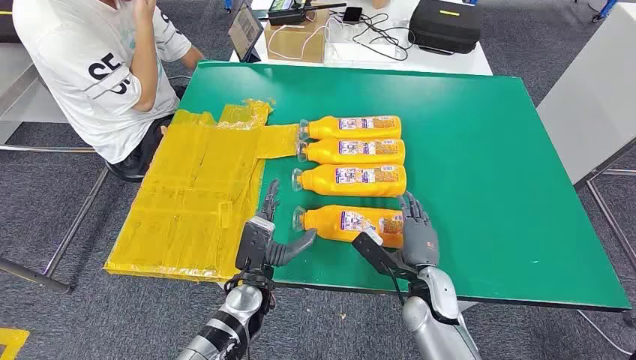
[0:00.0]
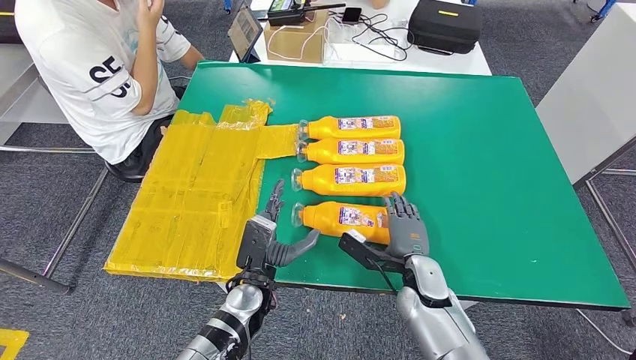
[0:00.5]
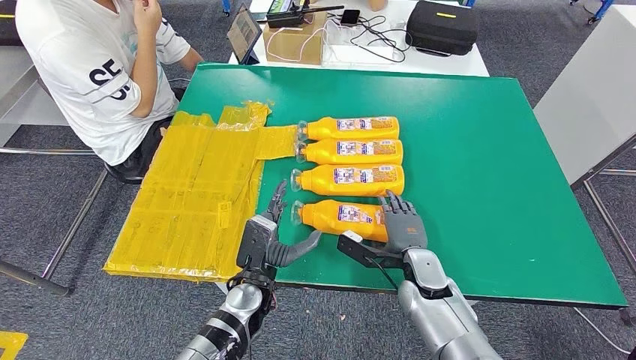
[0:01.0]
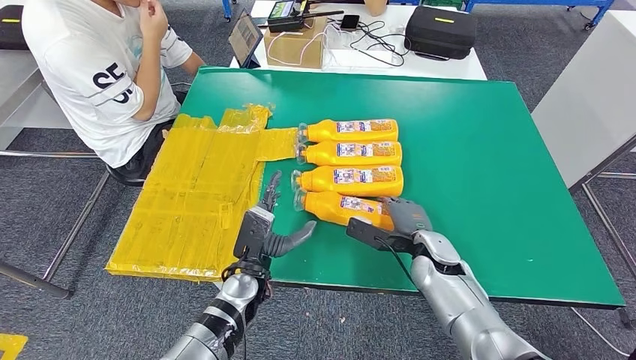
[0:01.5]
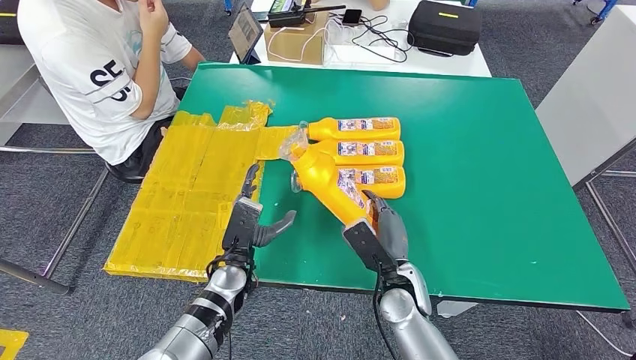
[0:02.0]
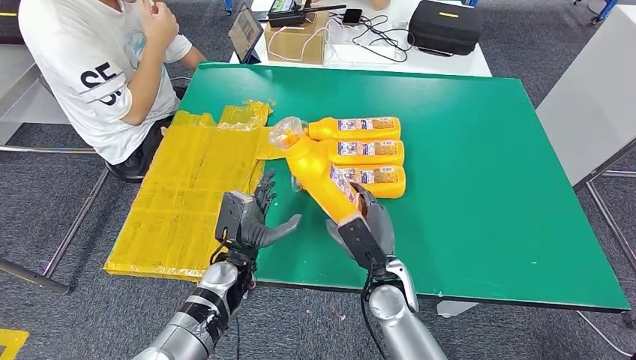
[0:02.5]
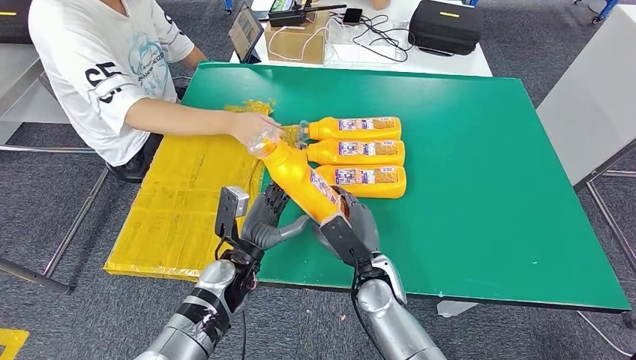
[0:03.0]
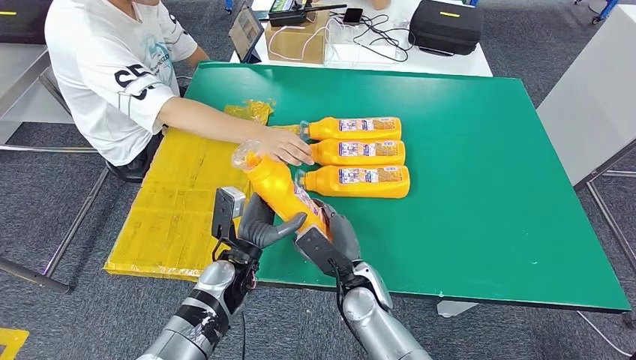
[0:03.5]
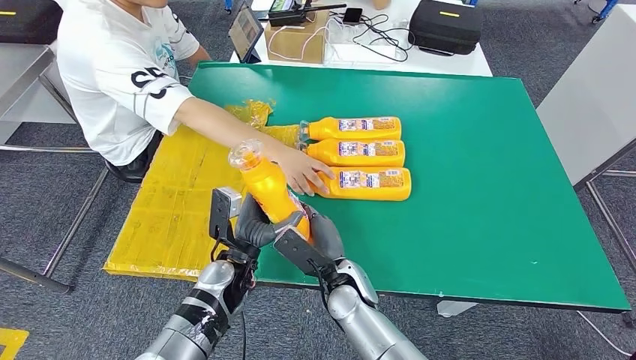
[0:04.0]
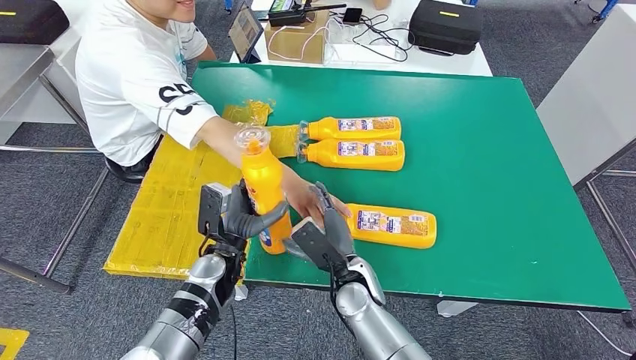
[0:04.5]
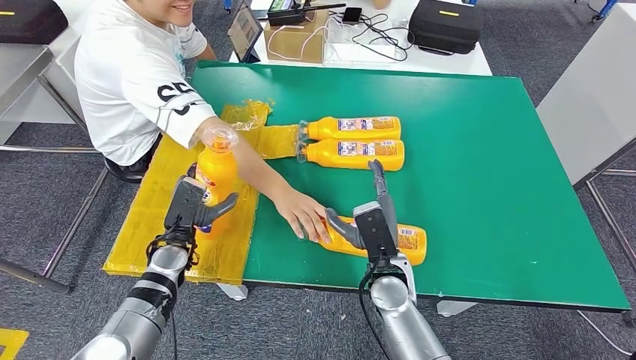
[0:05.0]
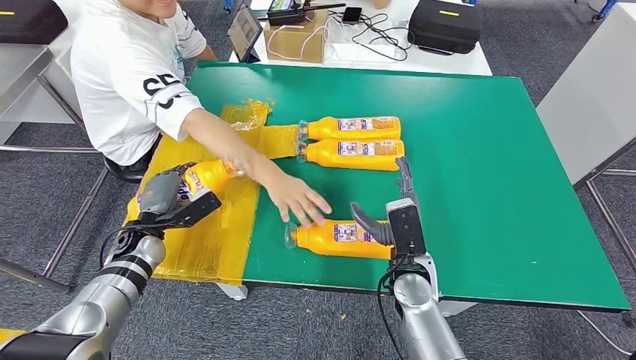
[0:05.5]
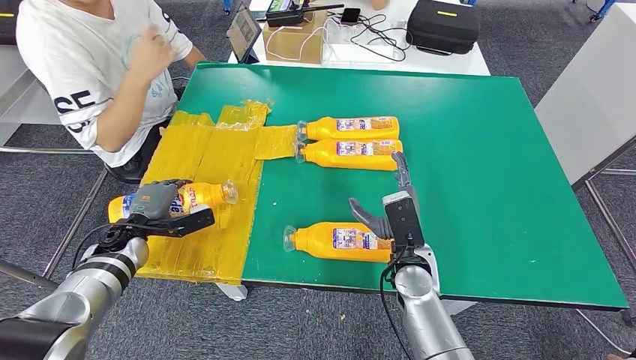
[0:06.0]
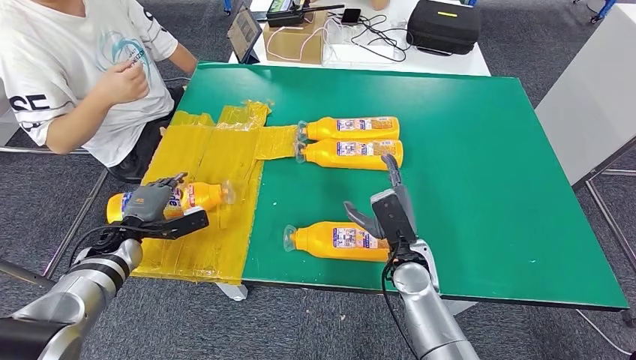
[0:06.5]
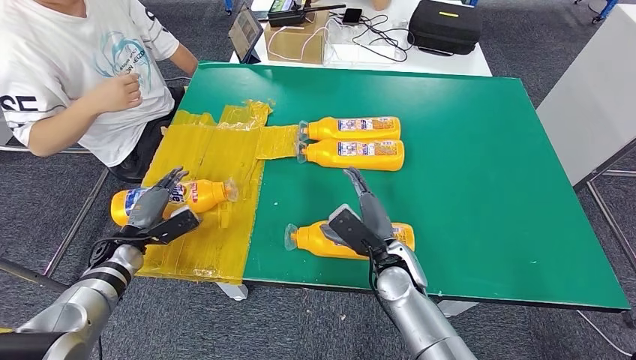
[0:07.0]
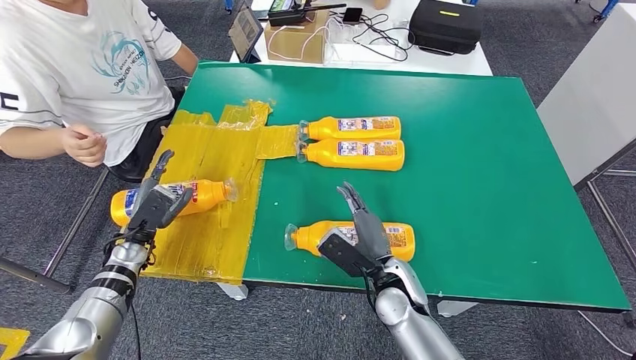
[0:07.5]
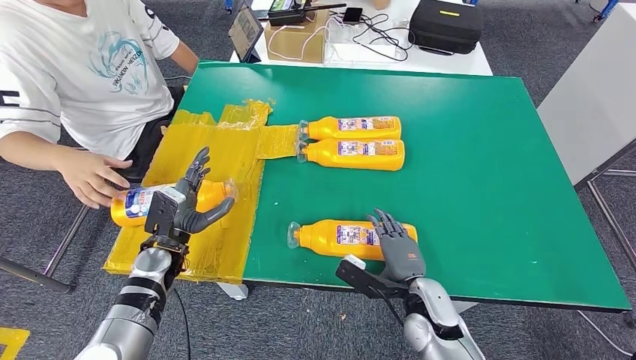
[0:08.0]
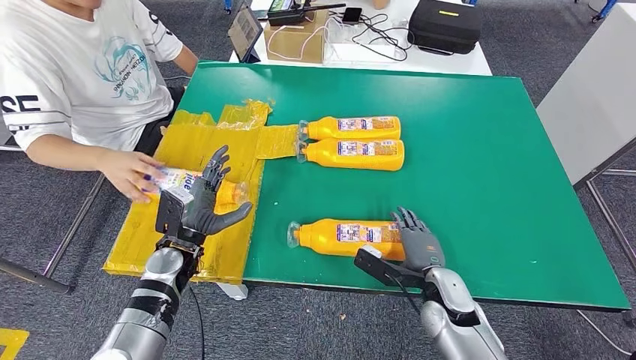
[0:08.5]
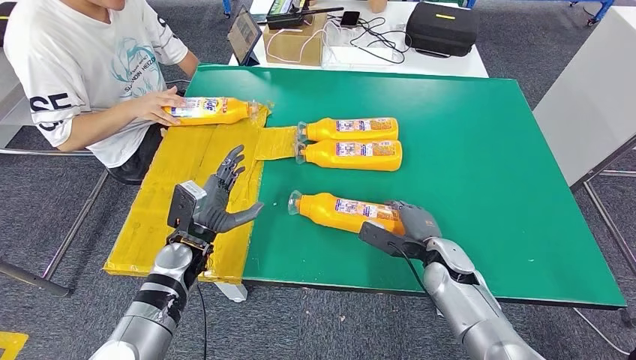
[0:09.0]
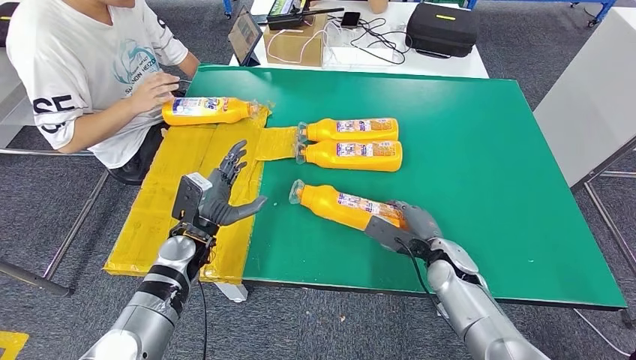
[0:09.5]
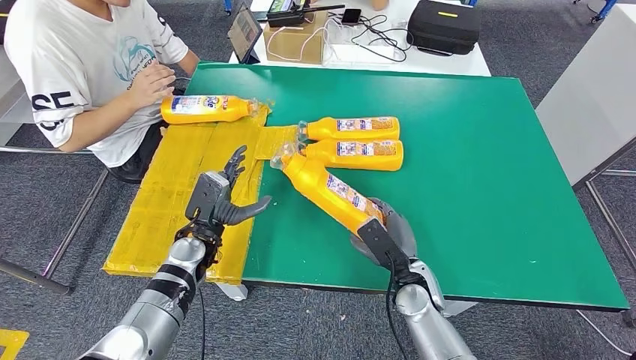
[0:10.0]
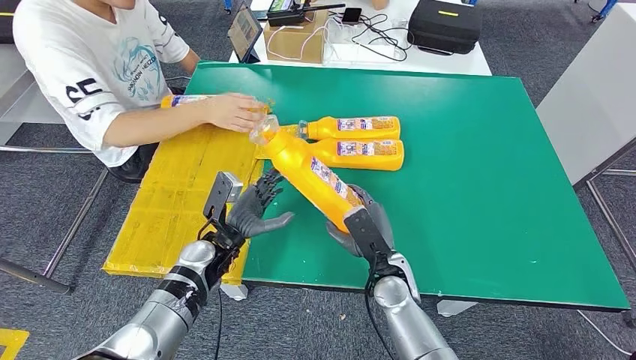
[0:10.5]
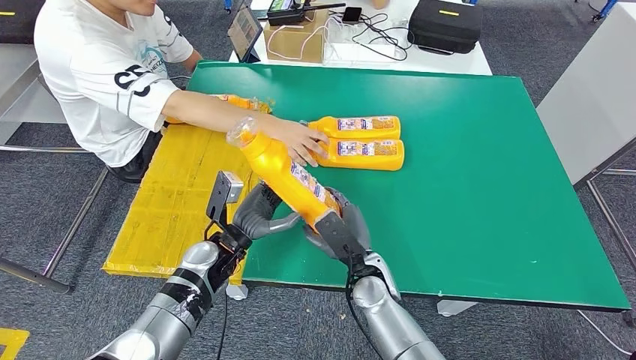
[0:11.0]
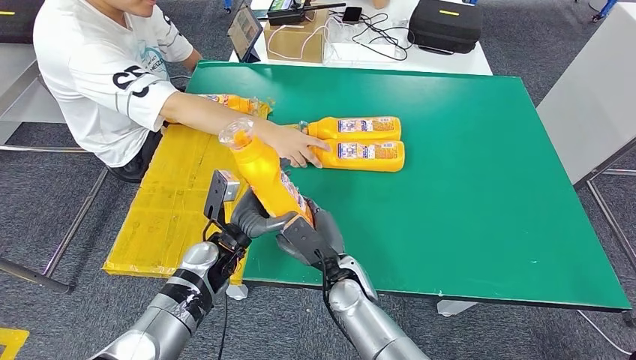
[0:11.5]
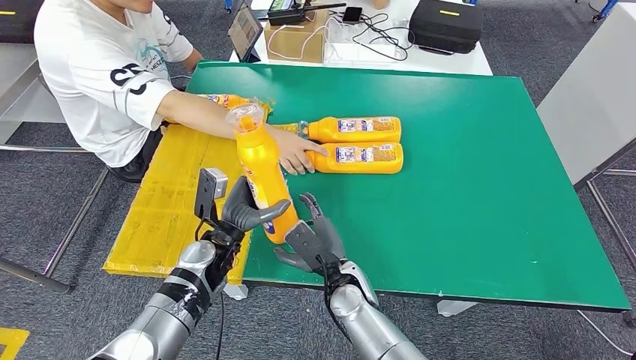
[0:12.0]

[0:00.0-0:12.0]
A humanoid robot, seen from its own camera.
Step, 0:00.0 to 0:02.5: Take the bottle from the table.
Step, 0:03.5 to 0:06.5: Flip the bottle to face forward.
Step, 0:08.5 to 0:10.0: Pick up the bottle from the table.

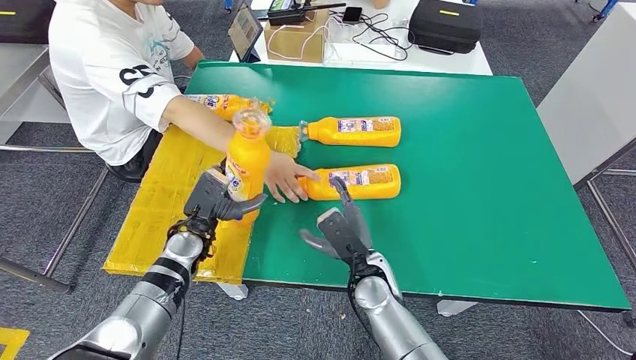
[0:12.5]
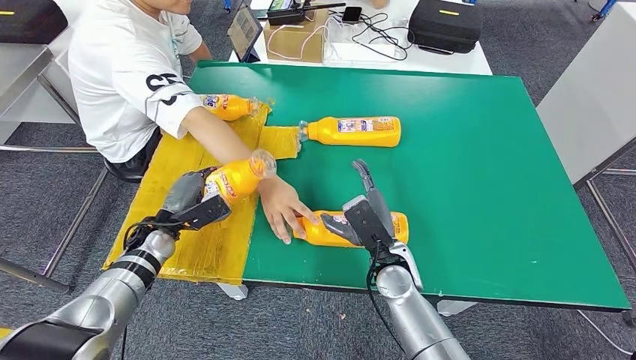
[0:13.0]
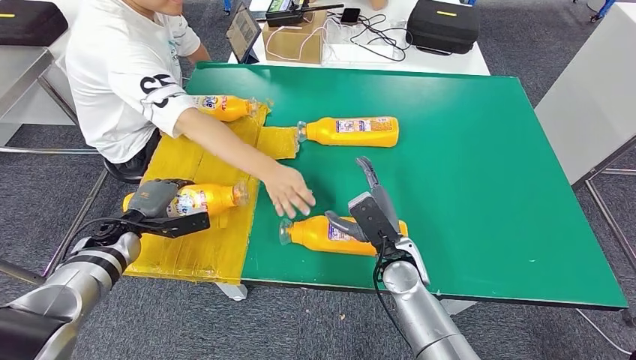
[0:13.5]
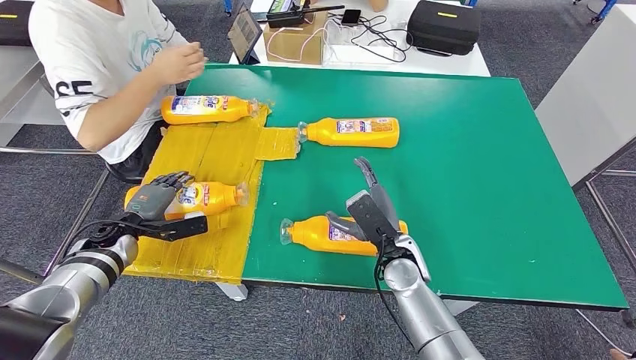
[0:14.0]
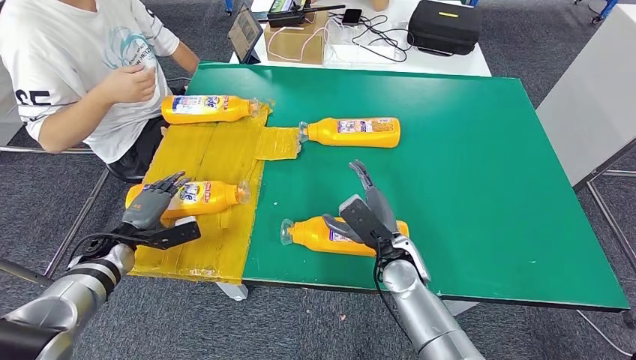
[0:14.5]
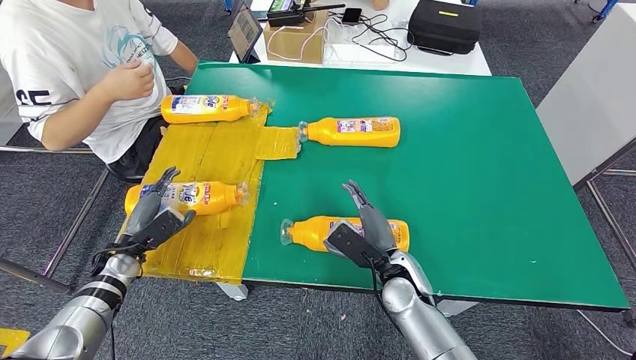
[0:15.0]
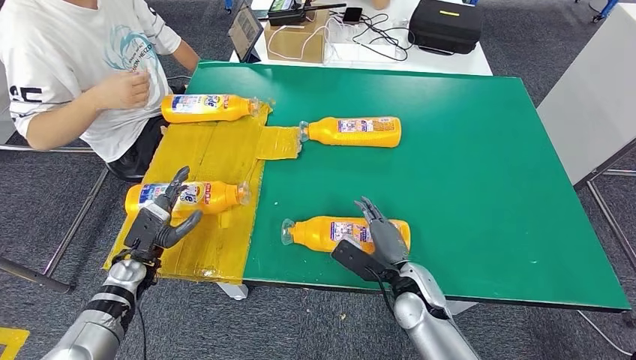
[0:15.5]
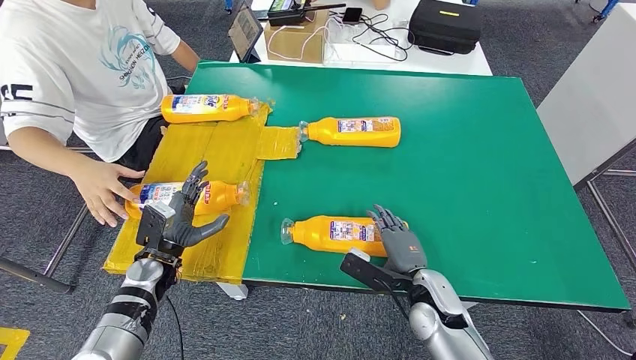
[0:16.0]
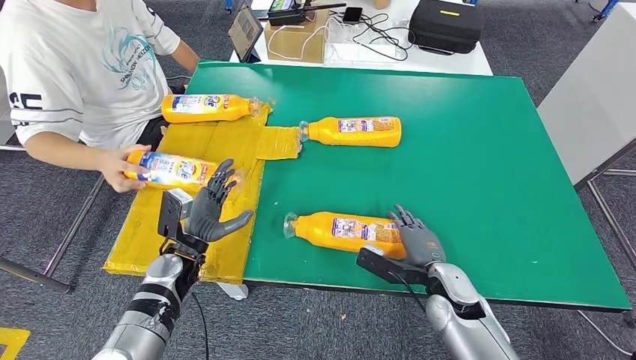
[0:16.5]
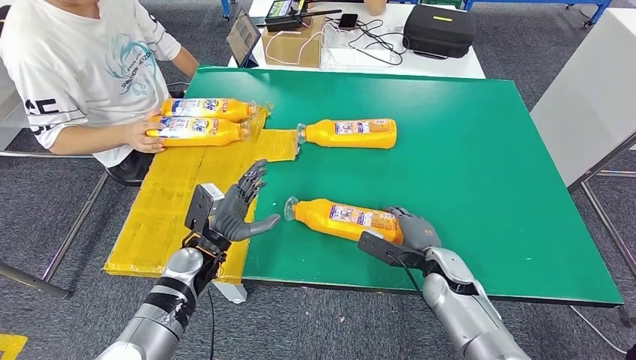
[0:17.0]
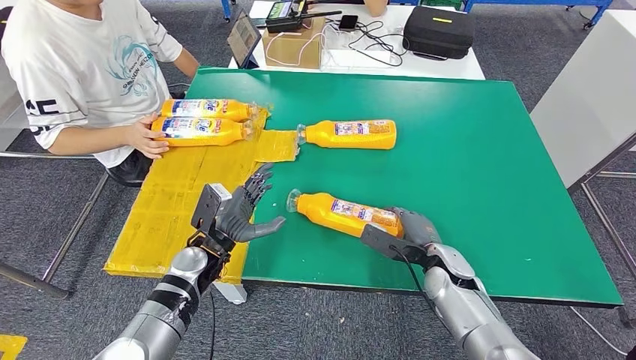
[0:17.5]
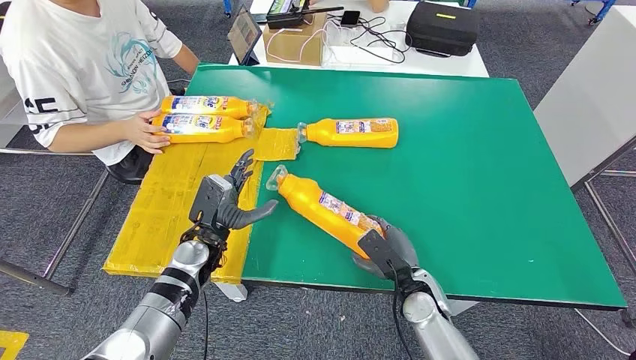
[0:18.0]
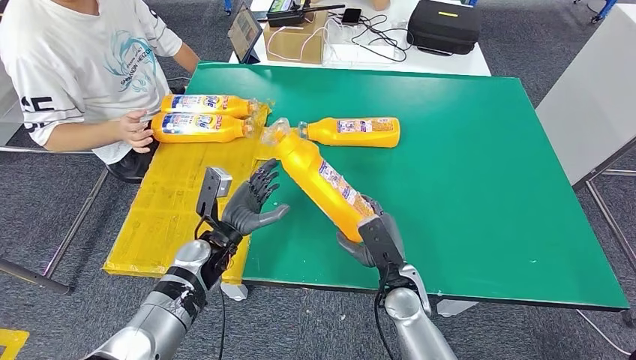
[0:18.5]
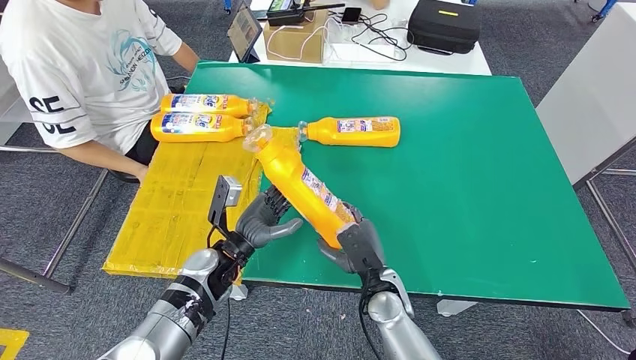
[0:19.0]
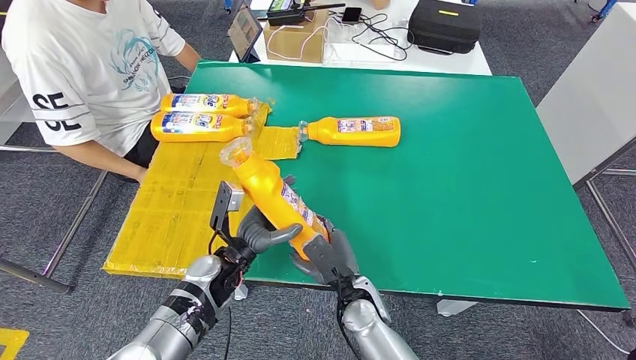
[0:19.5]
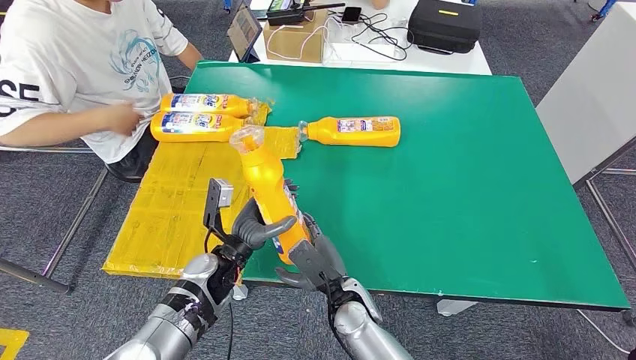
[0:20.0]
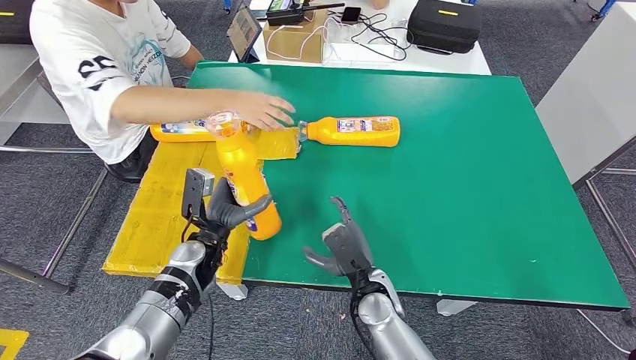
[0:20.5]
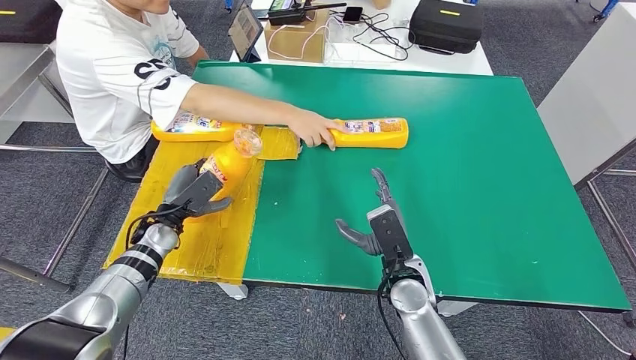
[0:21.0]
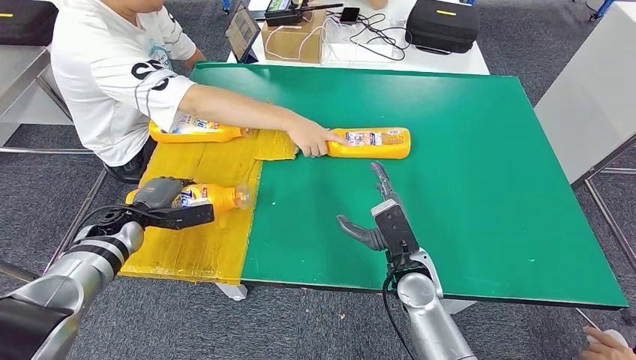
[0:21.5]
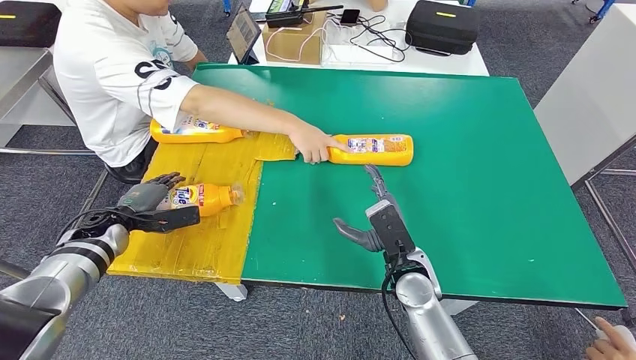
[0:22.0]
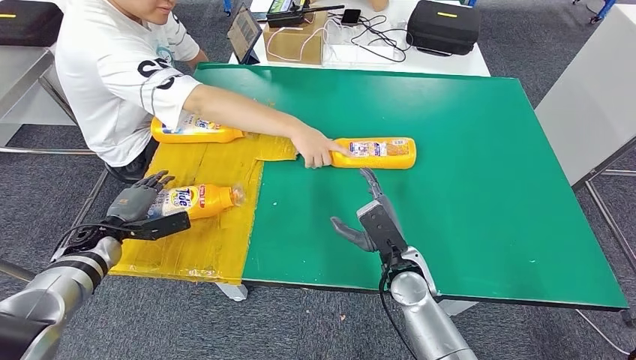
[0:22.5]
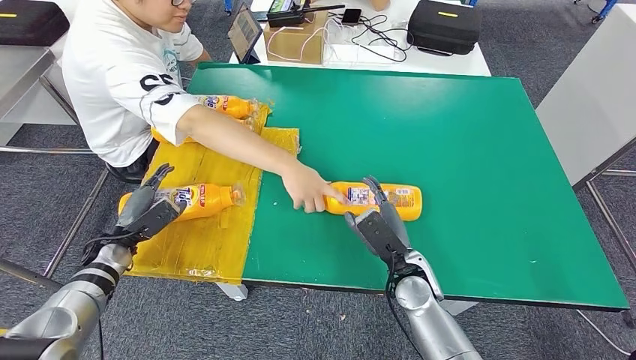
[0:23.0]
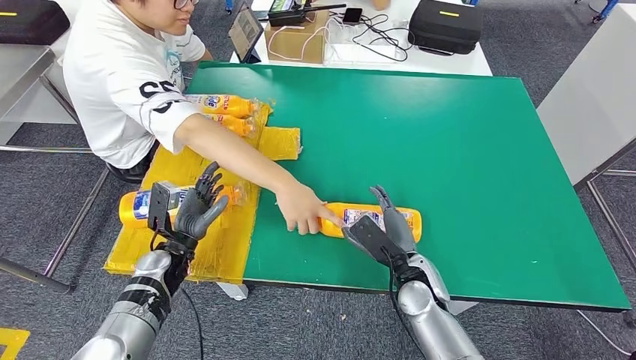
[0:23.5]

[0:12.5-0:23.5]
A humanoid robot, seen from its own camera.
Step, 0:12.5 to 0:15.0: Flip the bottle to face forward.
Step, 0:17.0 to 0:18.5: Pick up the bottle from the table.
Step, 0:19.5 to 0:22.5: Flip the bottle to face forward.
0:14.5 to 0:16.0: The right hand goes about 10 cm to the right and backward, while the left hand shifts approximately 10 cm to the right.
